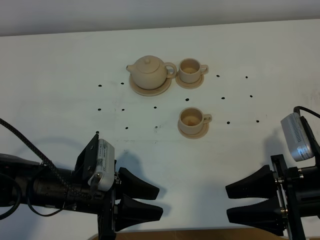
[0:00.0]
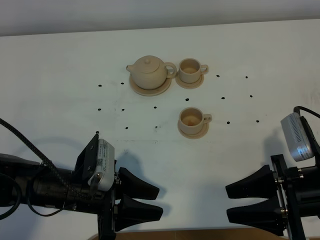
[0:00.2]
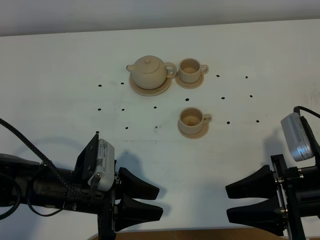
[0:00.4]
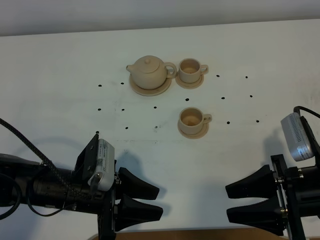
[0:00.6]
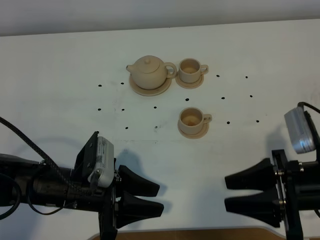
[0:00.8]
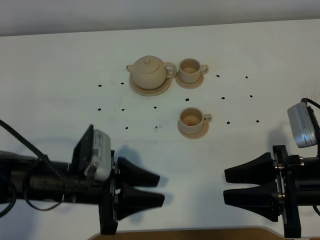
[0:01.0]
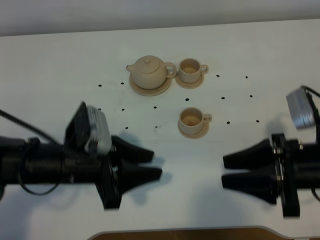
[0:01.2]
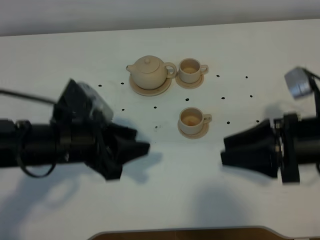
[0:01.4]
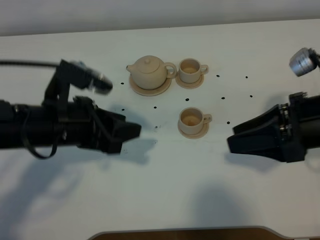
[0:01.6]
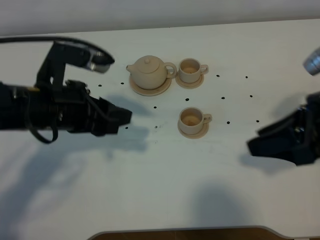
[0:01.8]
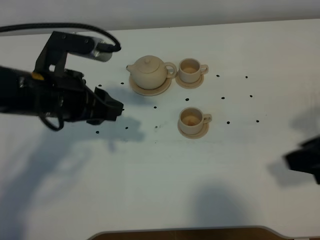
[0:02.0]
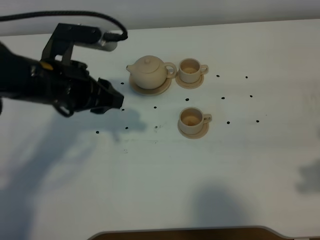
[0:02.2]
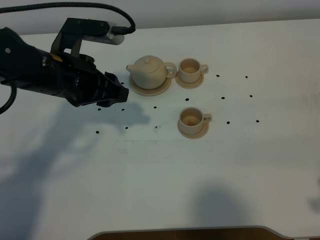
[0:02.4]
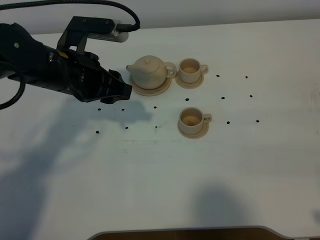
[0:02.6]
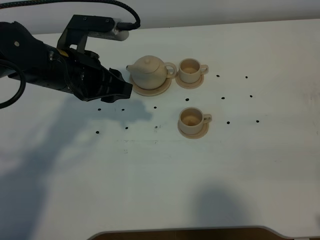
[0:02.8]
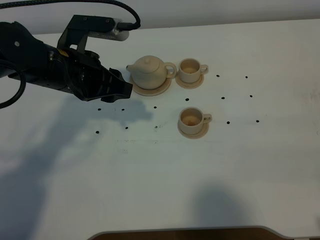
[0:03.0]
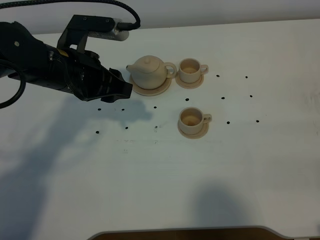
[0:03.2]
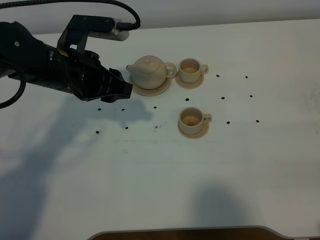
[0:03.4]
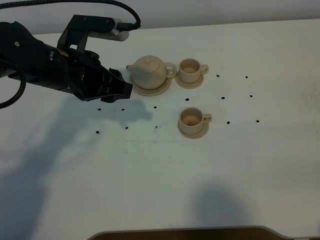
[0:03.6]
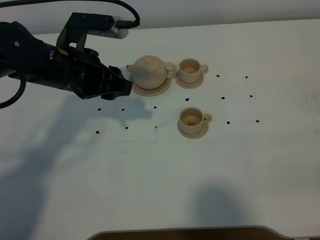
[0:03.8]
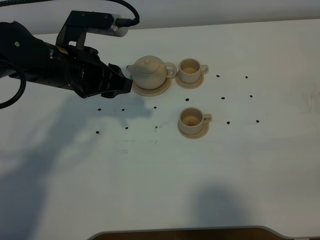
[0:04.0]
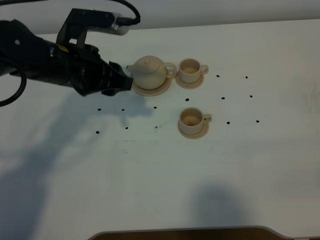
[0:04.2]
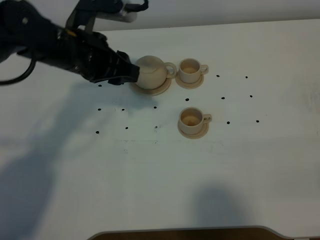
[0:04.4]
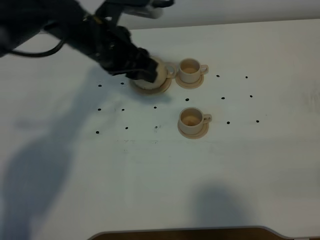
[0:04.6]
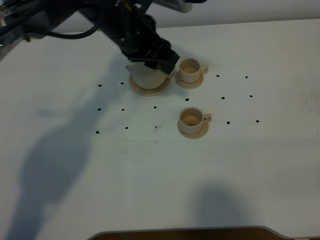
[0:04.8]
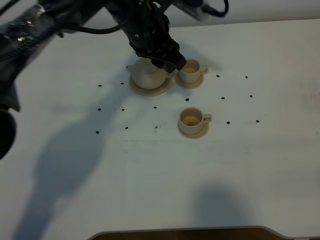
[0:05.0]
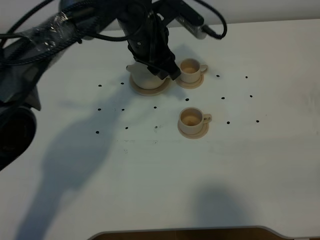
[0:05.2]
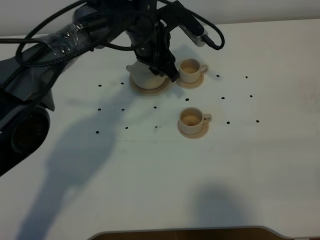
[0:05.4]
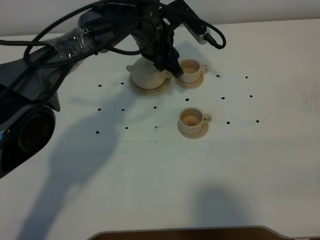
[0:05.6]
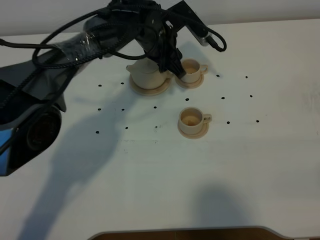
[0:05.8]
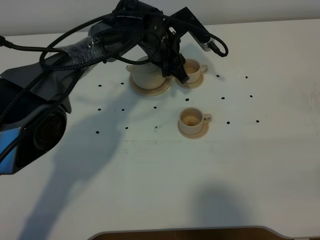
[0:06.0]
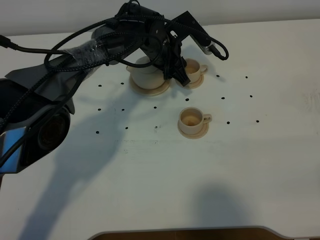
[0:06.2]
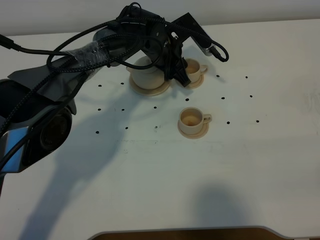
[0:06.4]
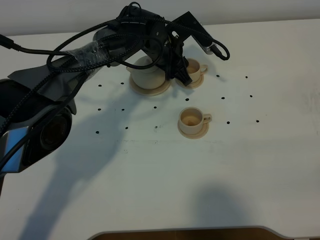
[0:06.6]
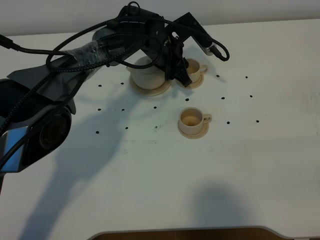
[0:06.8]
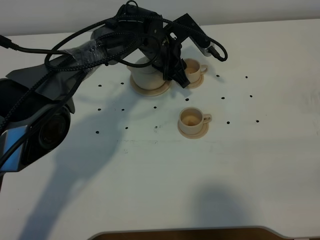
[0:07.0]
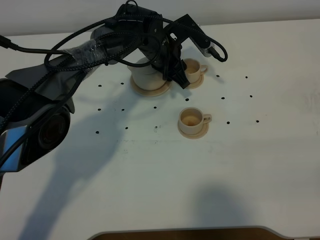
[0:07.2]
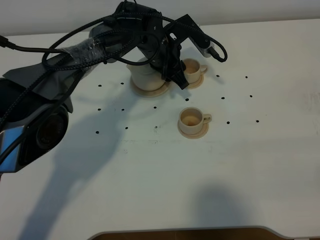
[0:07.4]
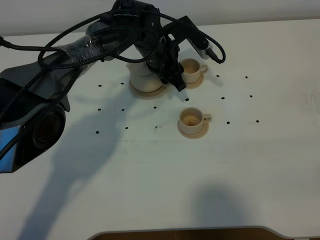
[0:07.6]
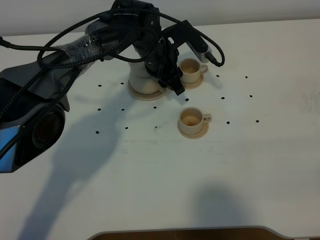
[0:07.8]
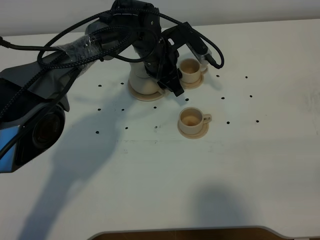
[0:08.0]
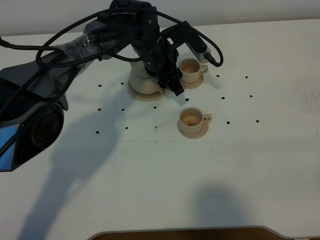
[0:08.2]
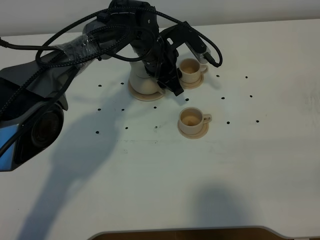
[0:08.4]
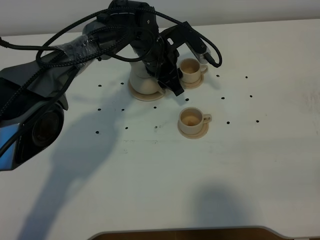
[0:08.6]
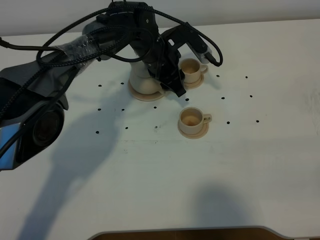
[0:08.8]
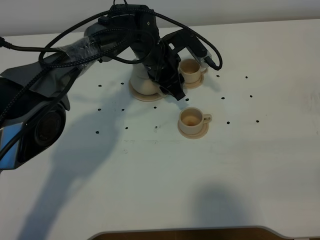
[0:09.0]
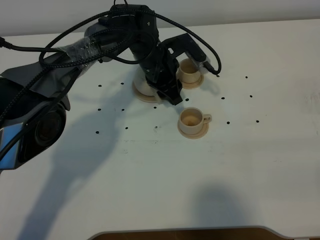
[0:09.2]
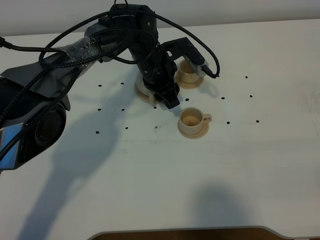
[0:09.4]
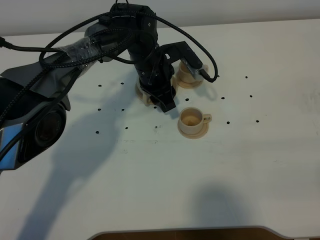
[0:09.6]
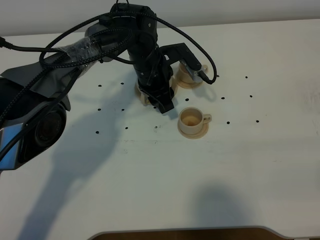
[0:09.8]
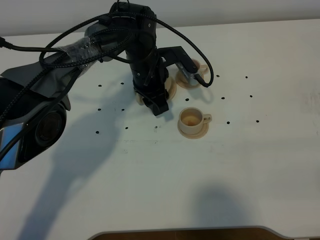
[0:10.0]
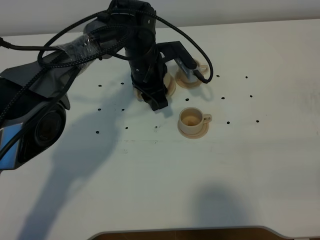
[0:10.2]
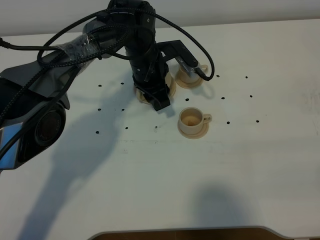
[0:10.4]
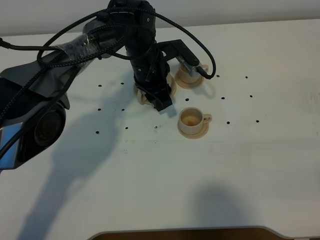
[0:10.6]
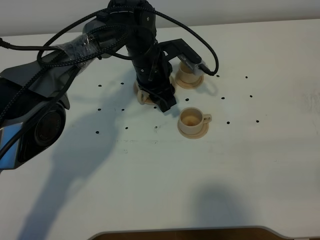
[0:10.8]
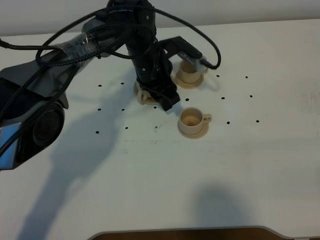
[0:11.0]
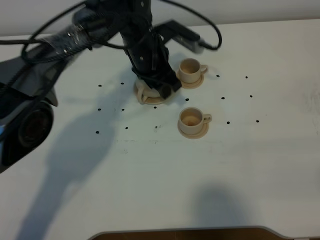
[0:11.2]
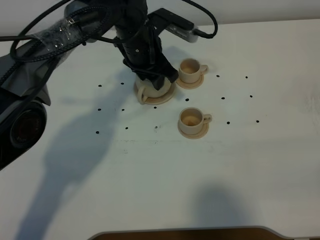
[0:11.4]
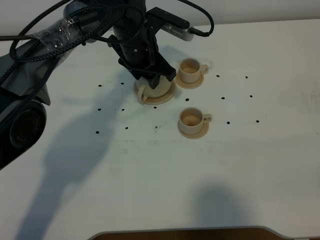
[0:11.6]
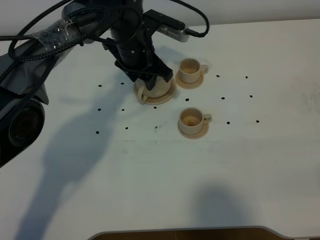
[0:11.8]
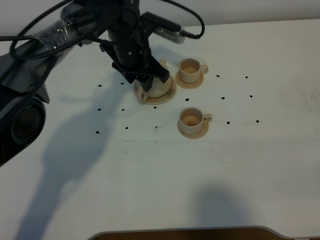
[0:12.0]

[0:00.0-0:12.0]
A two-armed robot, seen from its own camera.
Task of the whole recording: grasp the brown teapot and pour the tea into the two brown teacups one by one, put the brown teapot back in its original place.
0:00.0 to 0:01.6: Both grippers travel together upward and forward, some 10 cm.
0:01.6 to 0:03.0: The right gripper heads backward and to the right, covering roughly 20 cm. Meanwhile the left gripper travels forward by approximately 10 cm.
0:03.0 to 0:04.4: The grippers move only a little.
0:04.4 to 0:06.0: The left gripper moves to the right, forward and downward, approximately 20 cm.
0:06.0 to 0:09.0: The grippers stay close to where they were, moving slightly.
0:09.0 to 0:10.4: There are only small adjustments of the grippers.

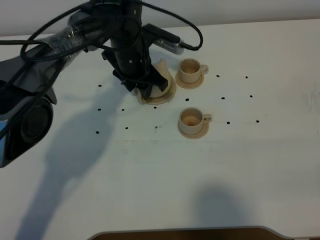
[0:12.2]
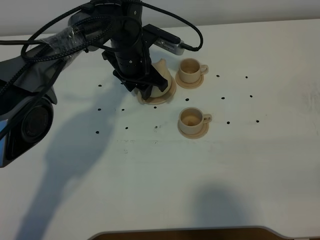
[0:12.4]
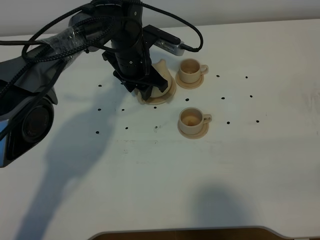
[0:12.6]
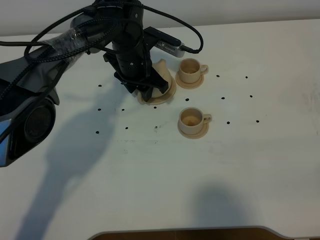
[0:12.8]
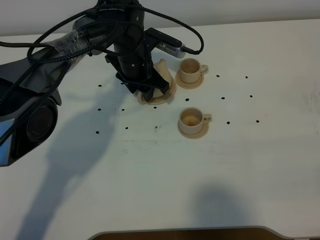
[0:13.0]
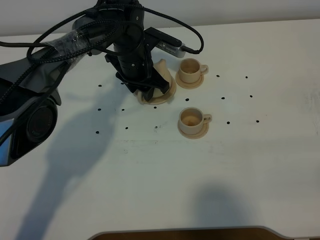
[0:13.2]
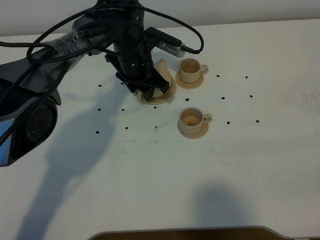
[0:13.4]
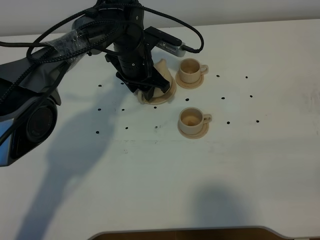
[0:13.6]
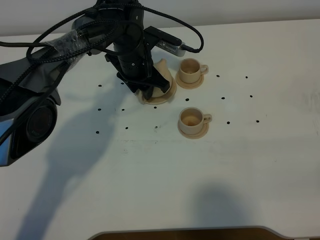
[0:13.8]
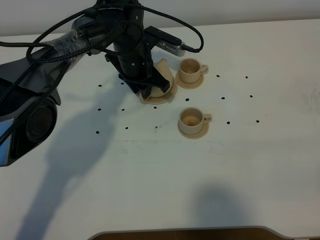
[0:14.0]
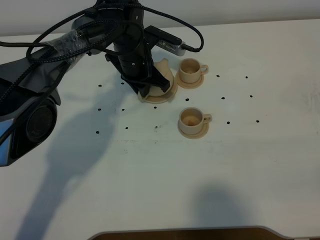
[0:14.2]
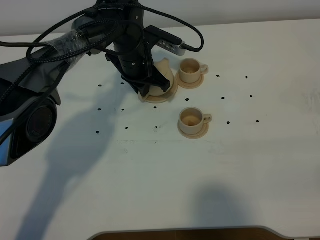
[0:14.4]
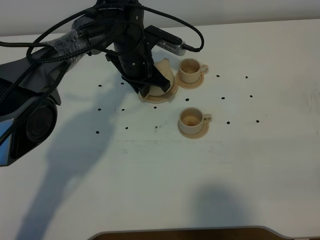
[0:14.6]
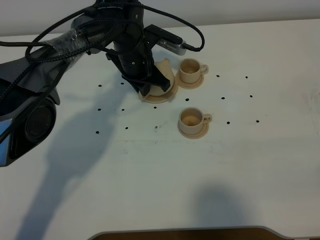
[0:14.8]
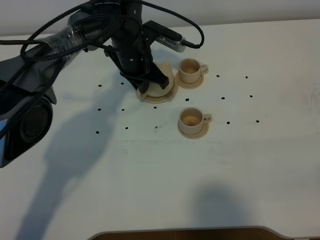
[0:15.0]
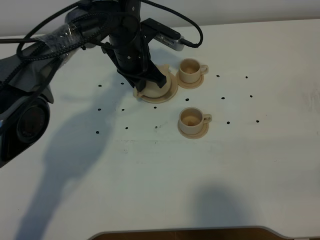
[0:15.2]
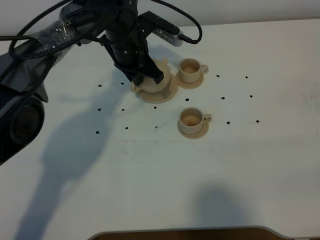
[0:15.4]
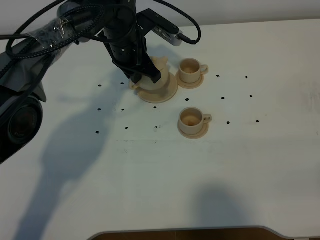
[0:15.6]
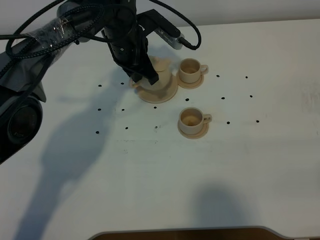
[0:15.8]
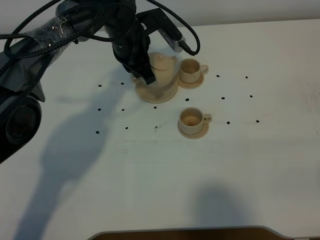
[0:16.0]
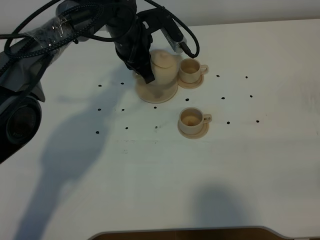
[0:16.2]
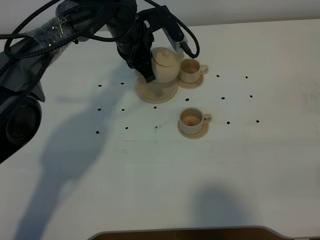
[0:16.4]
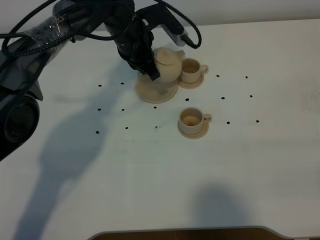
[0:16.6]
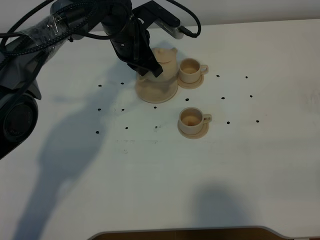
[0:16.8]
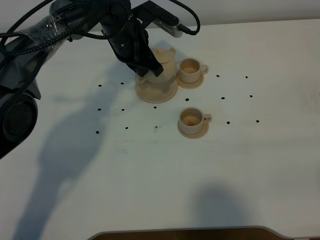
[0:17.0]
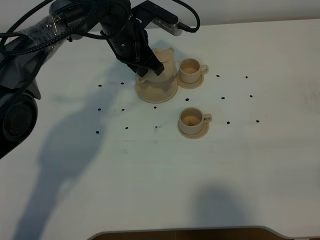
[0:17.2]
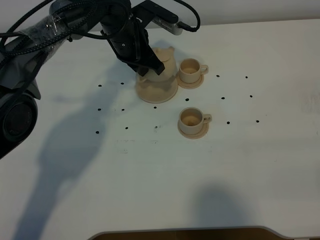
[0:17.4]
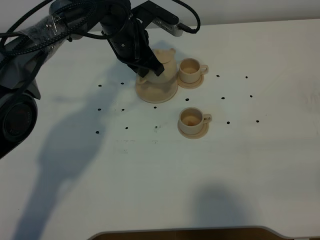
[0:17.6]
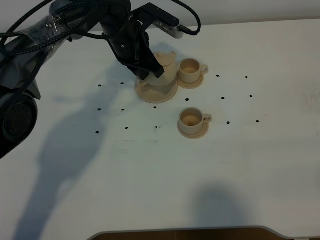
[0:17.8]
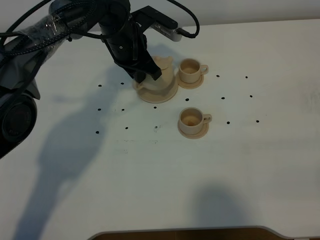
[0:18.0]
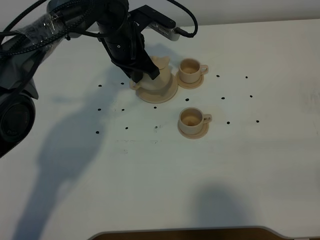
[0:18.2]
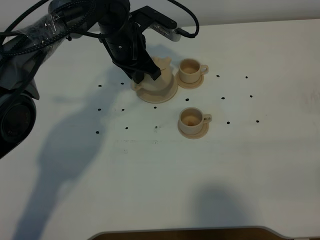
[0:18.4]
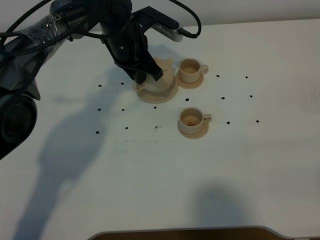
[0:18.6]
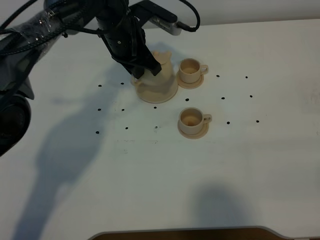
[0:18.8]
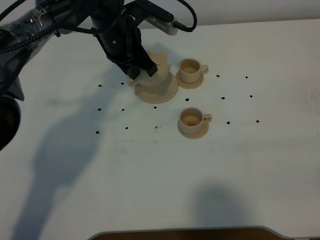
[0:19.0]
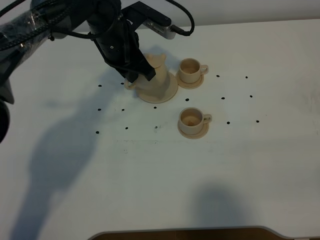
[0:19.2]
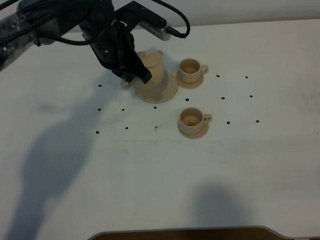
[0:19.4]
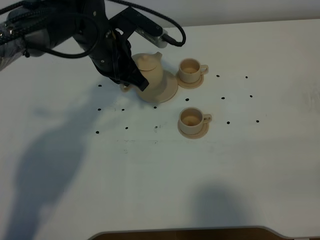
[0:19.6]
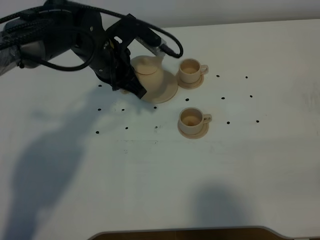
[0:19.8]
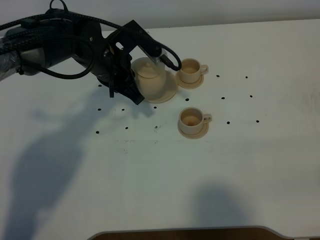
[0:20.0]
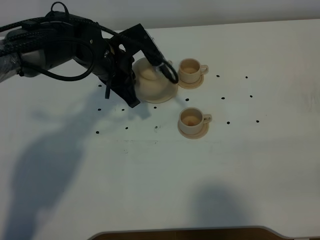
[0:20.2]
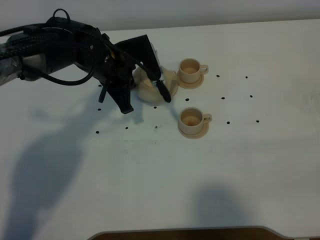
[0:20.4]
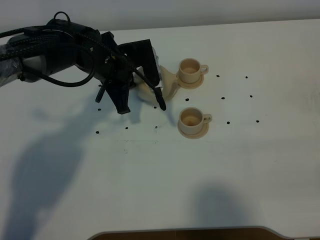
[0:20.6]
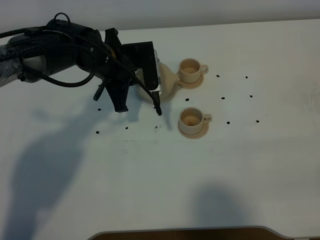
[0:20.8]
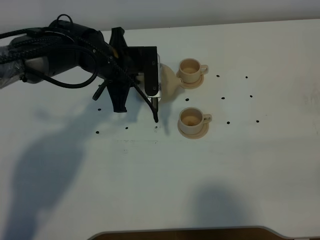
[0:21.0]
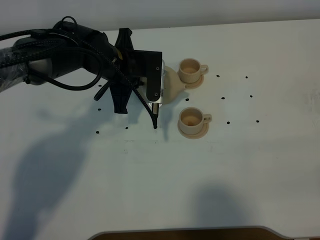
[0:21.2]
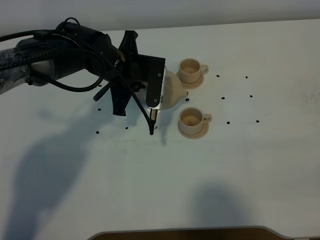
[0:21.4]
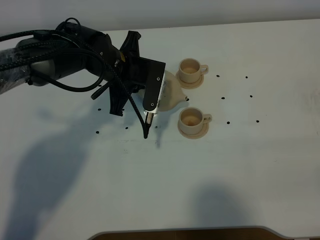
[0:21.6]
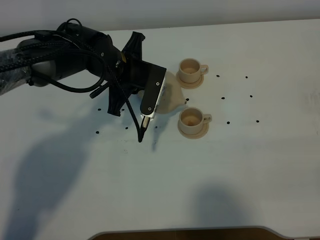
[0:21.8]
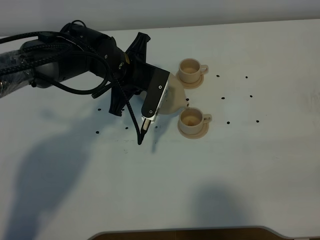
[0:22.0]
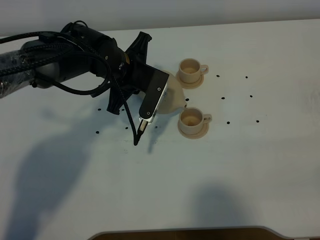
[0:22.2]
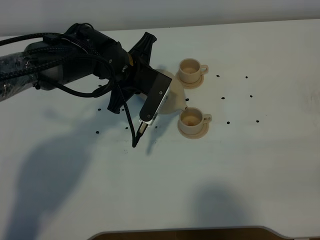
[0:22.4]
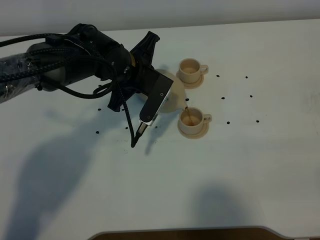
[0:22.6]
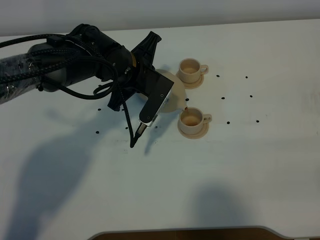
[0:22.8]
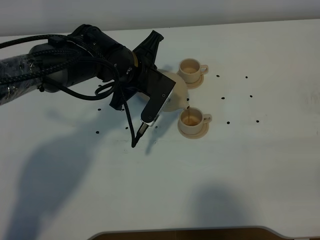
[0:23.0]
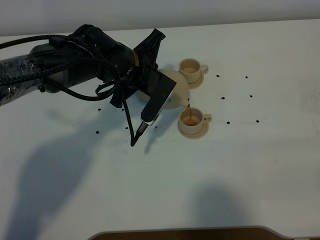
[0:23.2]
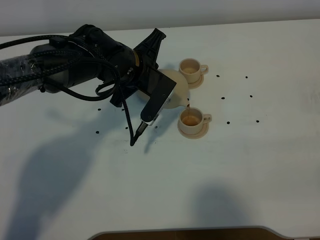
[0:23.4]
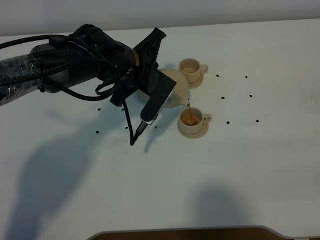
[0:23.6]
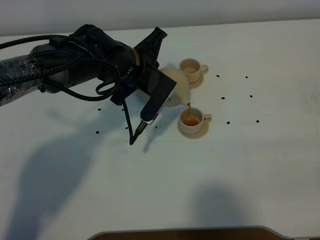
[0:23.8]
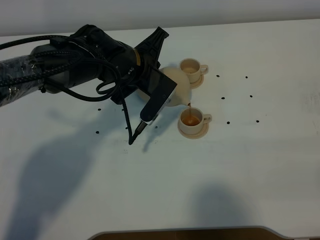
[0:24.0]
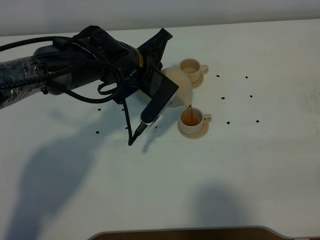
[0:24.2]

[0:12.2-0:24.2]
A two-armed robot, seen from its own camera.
Task of the whole recording: grasp the brown teapot and pour the tea into the two brown teacups one by one, put the brown teapot back in its original place.
Step, 0:12.2 to 0:15.2: Pick up the teapot with the left gripper.
0:12.2 to 0:13.8: The grippers move only a little.
0:13.8 to 0:15.2: The left gripper closes up.
0:16.6 to 0:18.2: The grippers make only small movements.
0:18.2 to 0:19.8: The left gripper shifts approximately 5 cm backward.
0:22.6 to 0:24.2: The grippers stay close to where they were, moving slightly.
